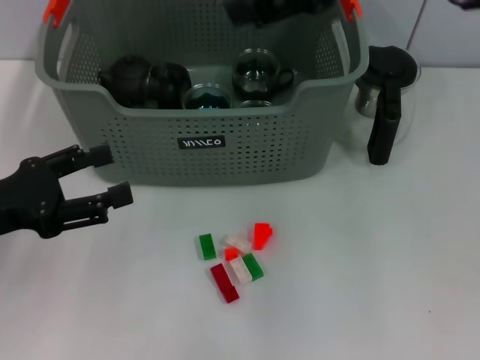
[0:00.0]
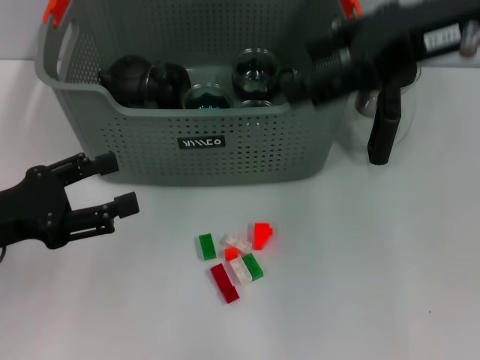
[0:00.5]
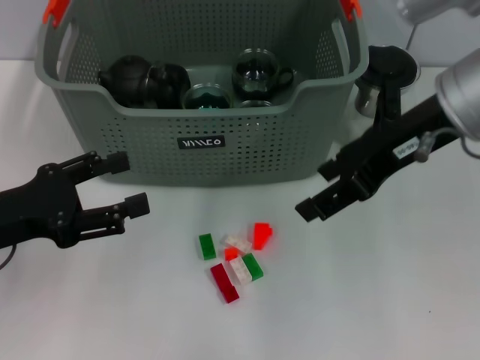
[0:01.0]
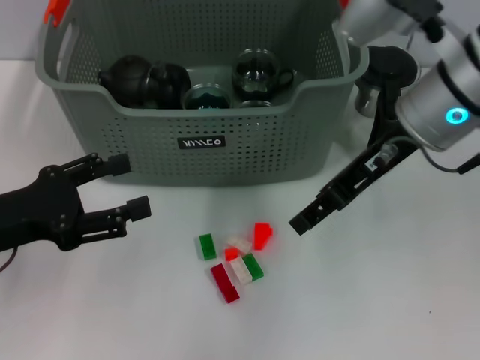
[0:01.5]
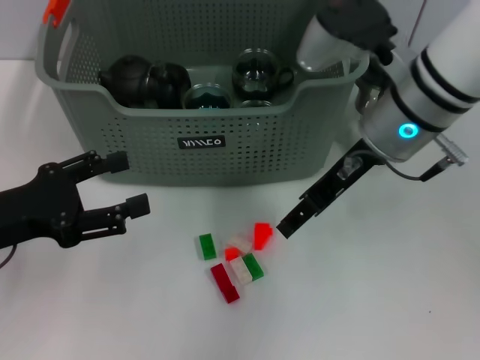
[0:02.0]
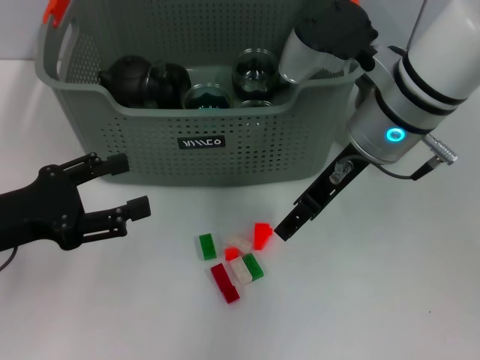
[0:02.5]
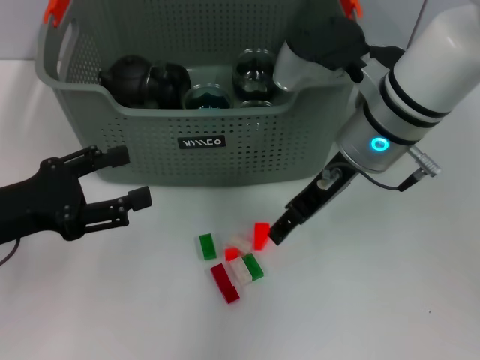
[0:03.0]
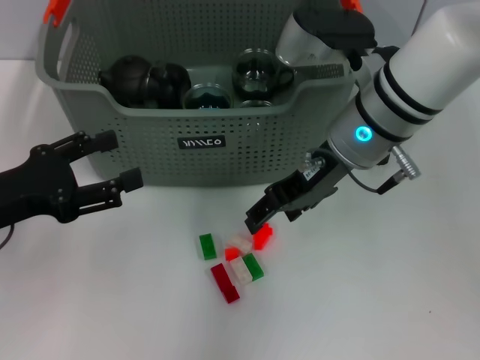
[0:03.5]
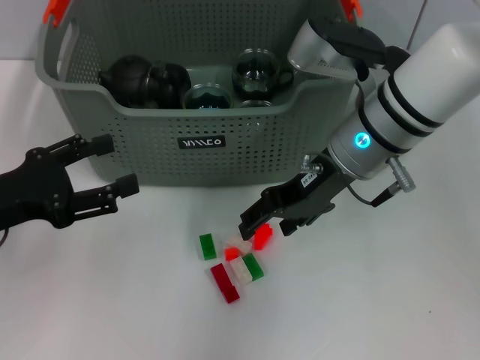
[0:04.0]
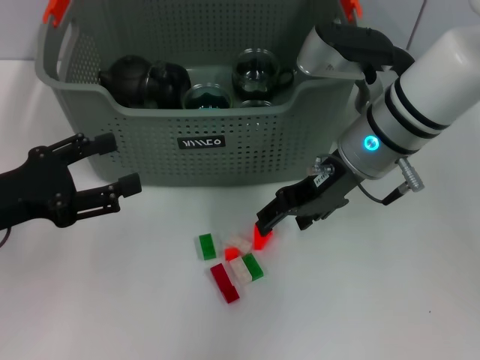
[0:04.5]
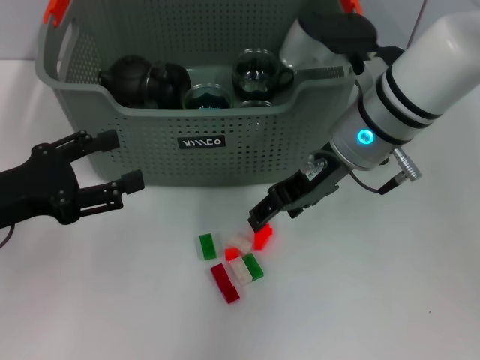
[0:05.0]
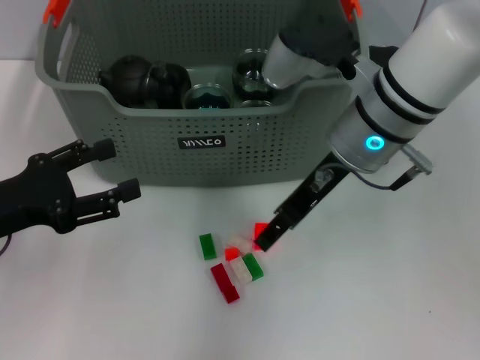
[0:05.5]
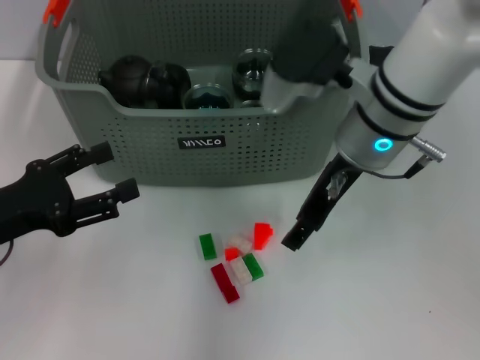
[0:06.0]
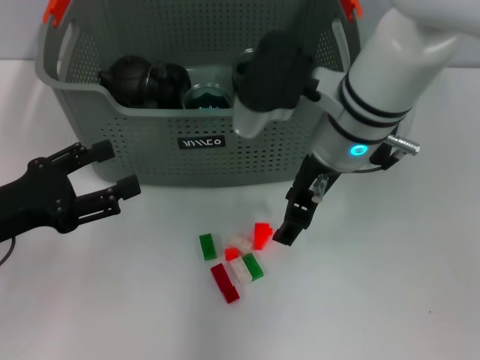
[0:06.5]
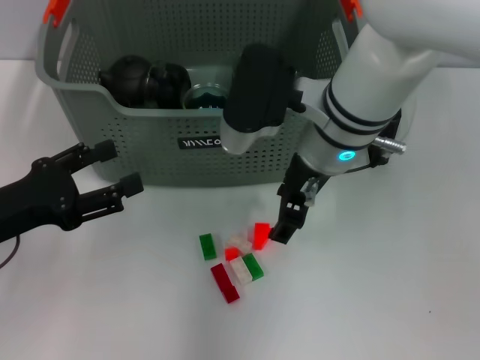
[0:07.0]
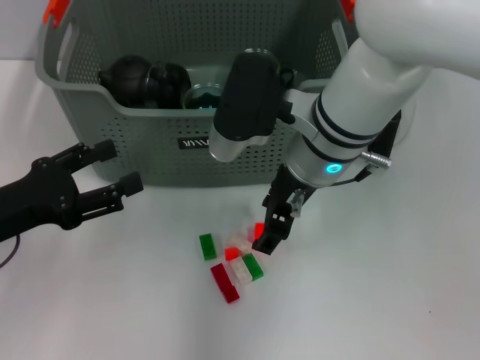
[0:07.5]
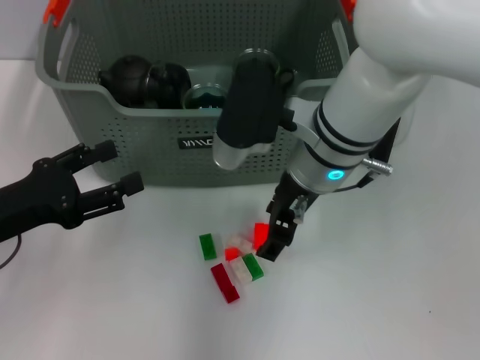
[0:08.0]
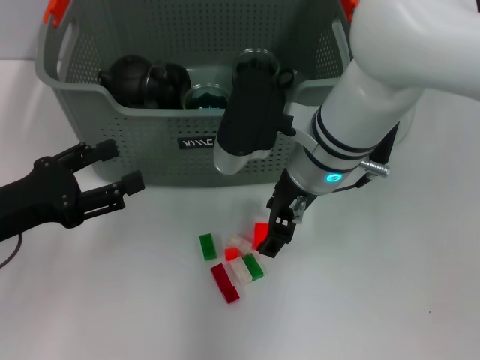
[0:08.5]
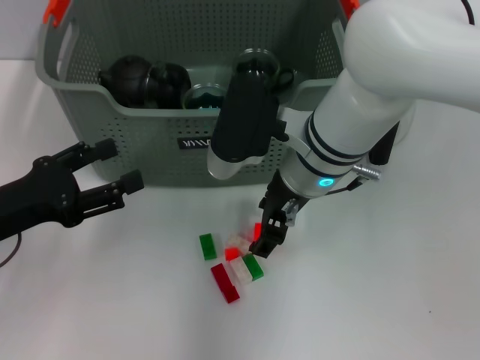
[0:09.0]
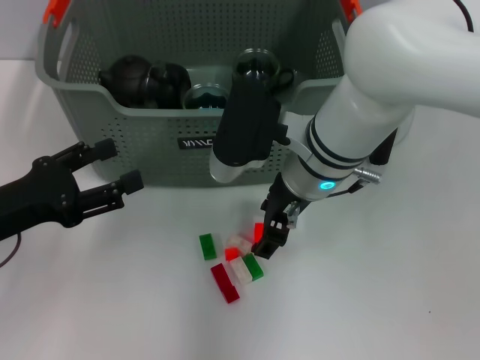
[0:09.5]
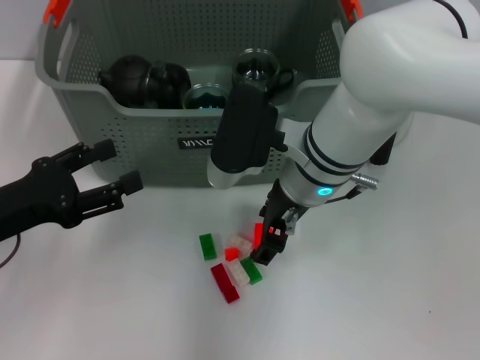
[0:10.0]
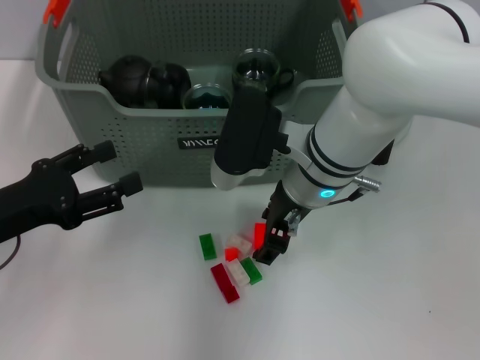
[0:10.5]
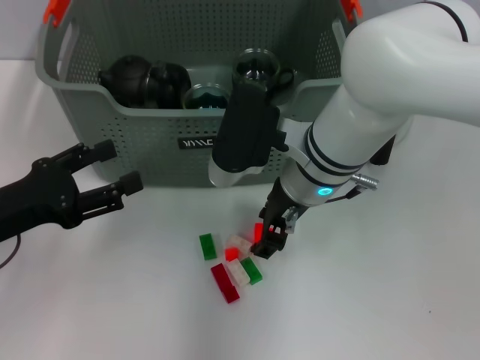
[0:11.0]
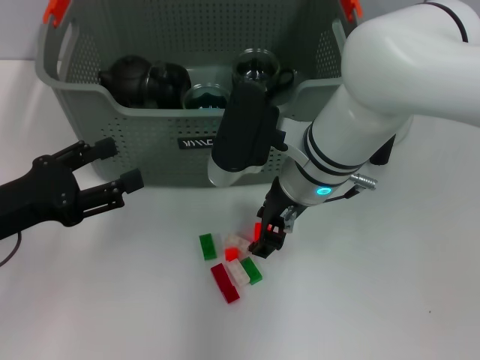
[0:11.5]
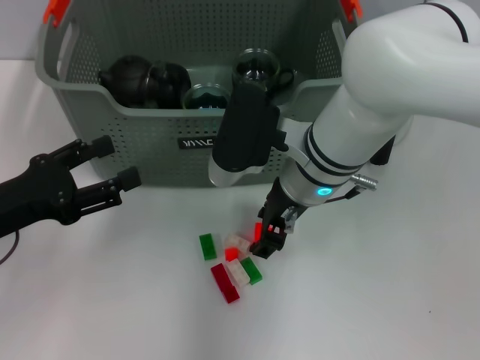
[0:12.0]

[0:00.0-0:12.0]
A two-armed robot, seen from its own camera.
Task of the whole recording: pick up the teacup on the table and place it into the storage bin, pick up the block on the table and place it into the storage bin.
0:00.0 to 0:02.0: The right gripper moves downward, roughly 15 cm.
0:06.0 to 0:08.0: The right gripper moves roughly 5 cm.
0:08.0 to 0:10.0: The grippers stay close to where they were, moving slightly.
0:10.0 to 0:12.0: Both grippers stay put.

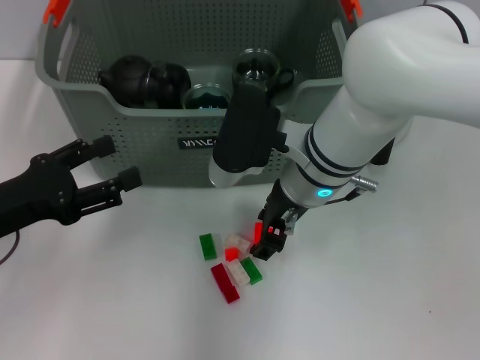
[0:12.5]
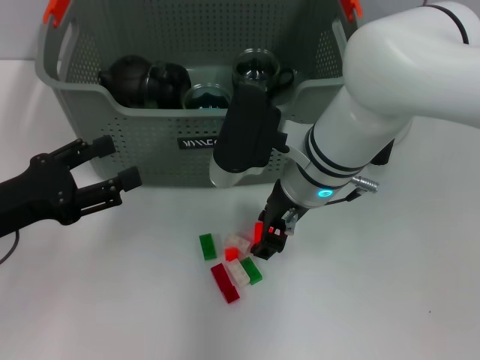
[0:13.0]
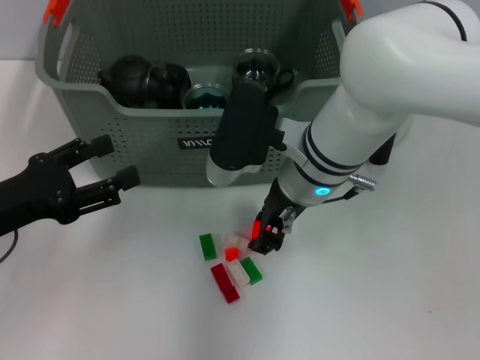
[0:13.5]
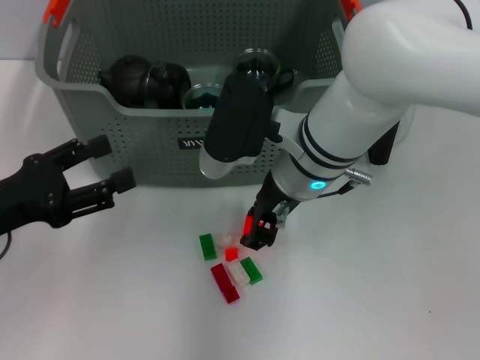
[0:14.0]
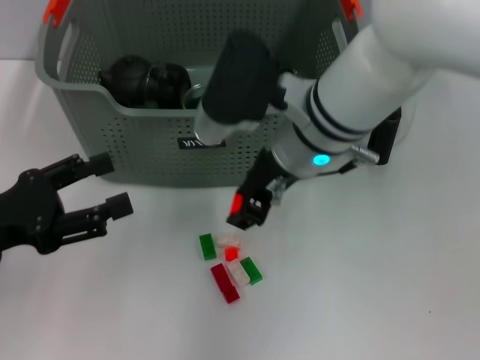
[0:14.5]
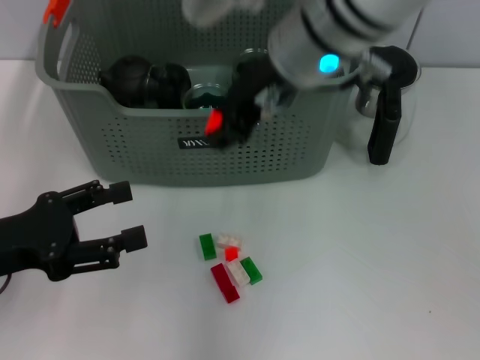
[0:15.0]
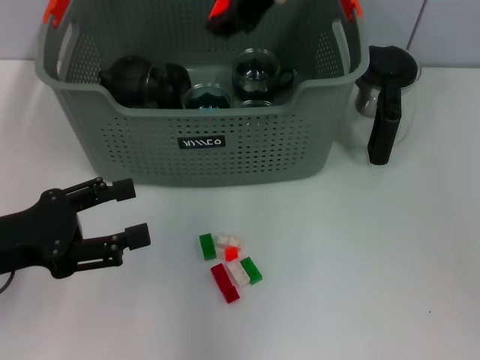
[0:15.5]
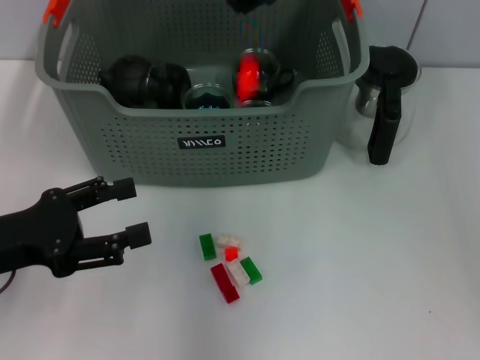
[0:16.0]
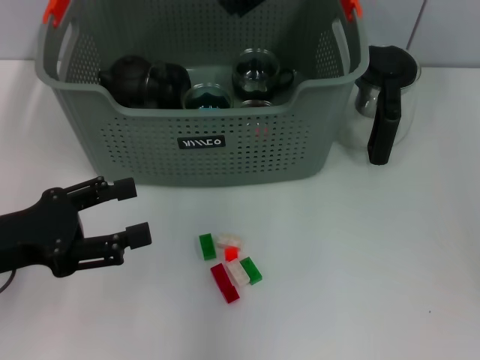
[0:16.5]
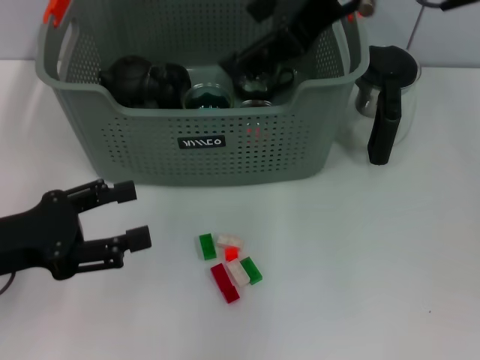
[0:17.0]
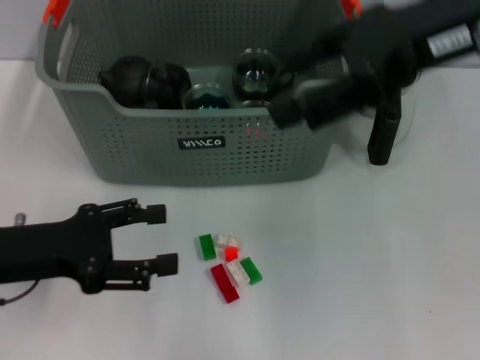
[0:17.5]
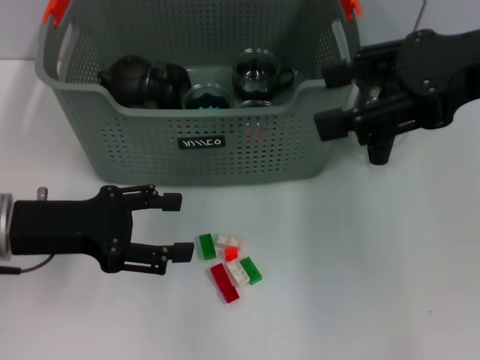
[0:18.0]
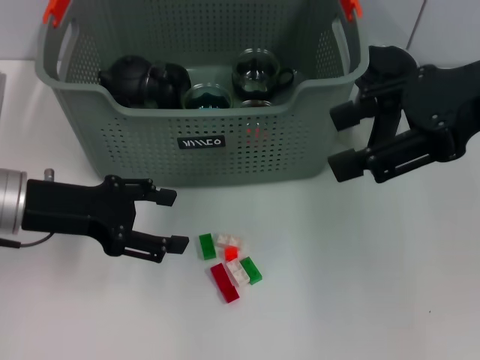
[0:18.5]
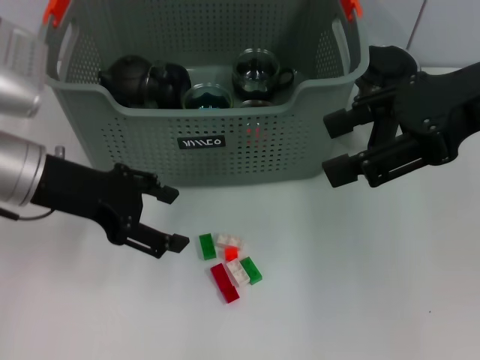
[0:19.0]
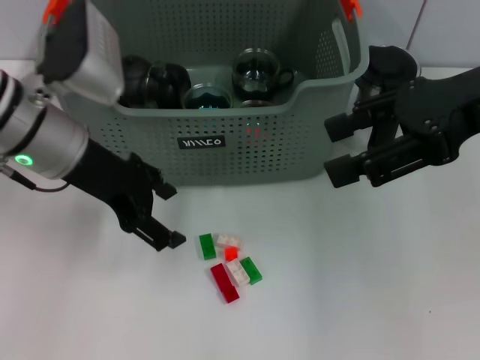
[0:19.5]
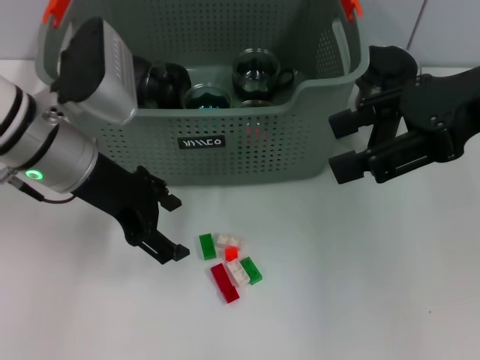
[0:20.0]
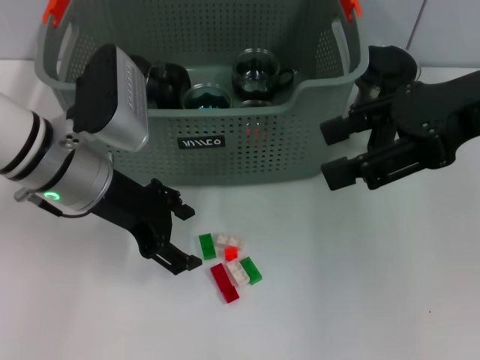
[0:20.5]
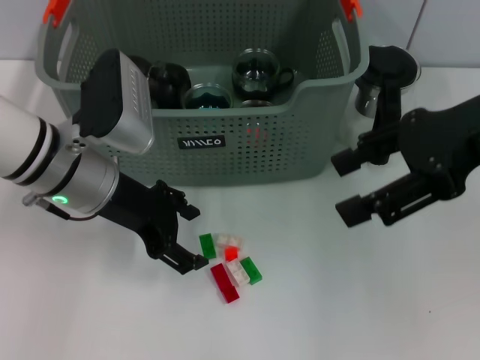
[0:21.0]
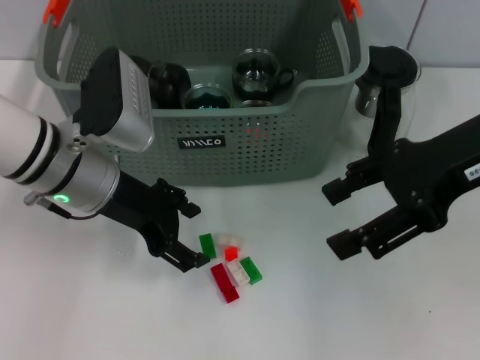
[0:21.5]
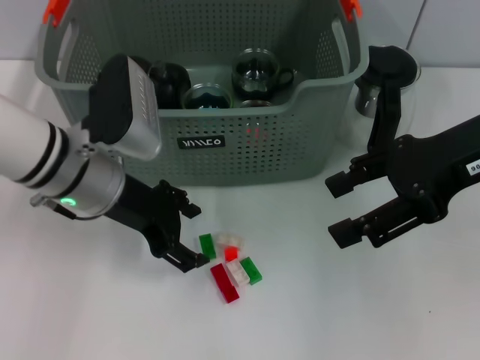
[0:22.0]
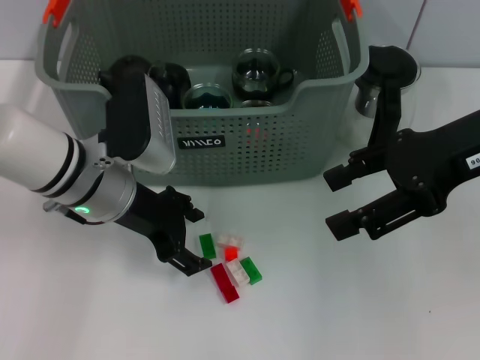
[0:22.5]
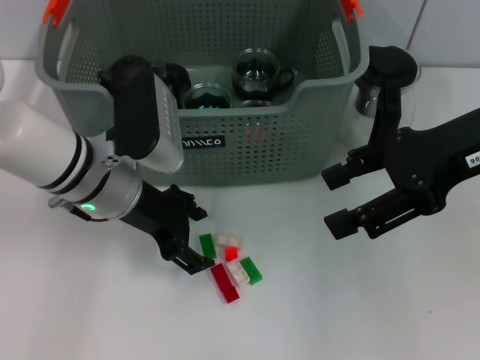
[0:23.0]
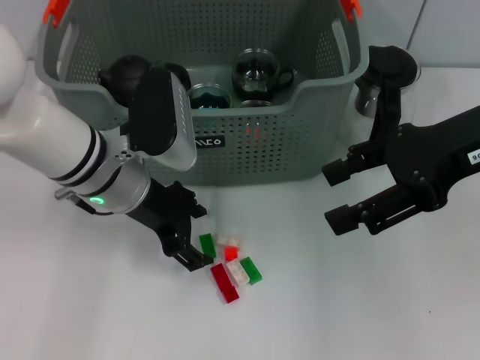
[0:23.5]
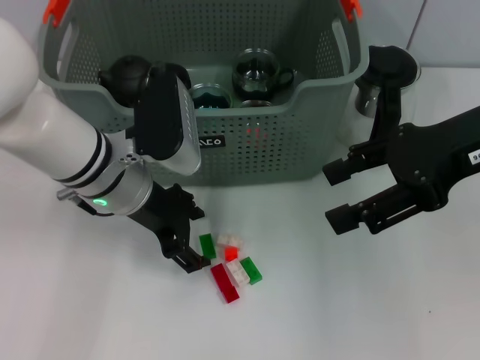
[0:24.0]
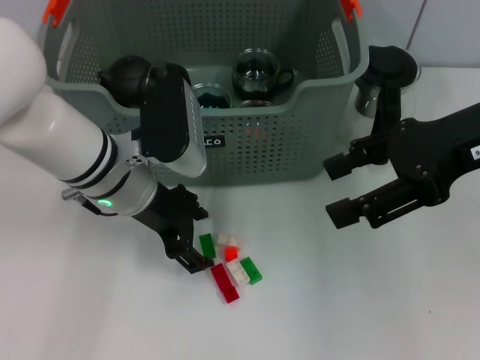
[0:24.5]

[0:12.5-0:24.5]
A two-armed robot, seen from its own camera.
Task of the whole recording: pick up the teacup on the table and place it into the storage bin, pick up the block on the table and place it into the storage bin.
Step, 0:13.5 to 0:17.0: Place the orange block in the storage box with right gripper.
0:12.5 to 0:14.5: The right gripper shifts roughly 5 cm upward.
0:14.5 to 0:16.5: The right gripper heads upward, covering roughly 15 cm, and opens its fingers.
0:16.5 to 0:18.5: The right gripper heads to the right and backward, covering about 15 cm; the left gripper is displaced forward by roughly 5 cm.
0:18.5 to 0:20.5: The left gripper shifts roughly 10 cm to the right.
0:20.5 to 0:24.5: The grippers stay close to where they were, moving slightly.

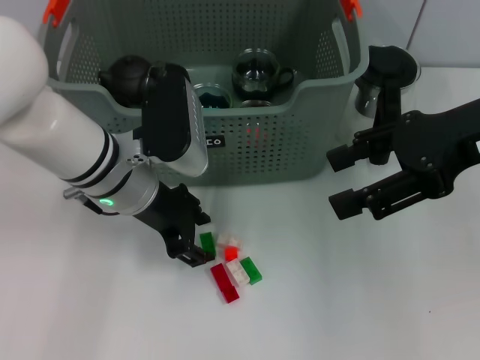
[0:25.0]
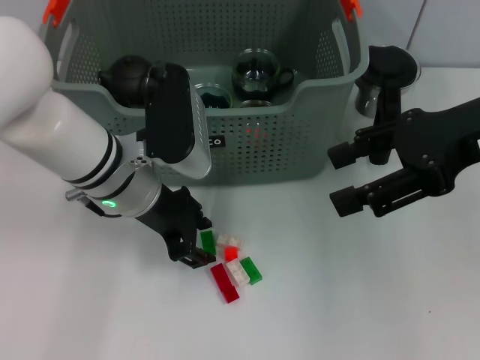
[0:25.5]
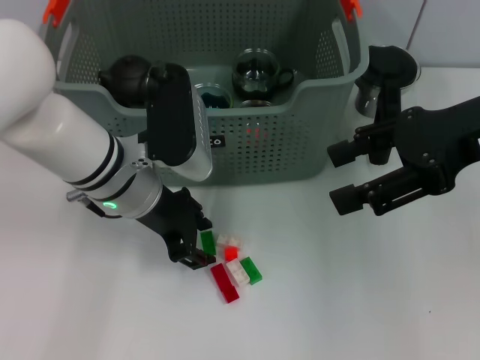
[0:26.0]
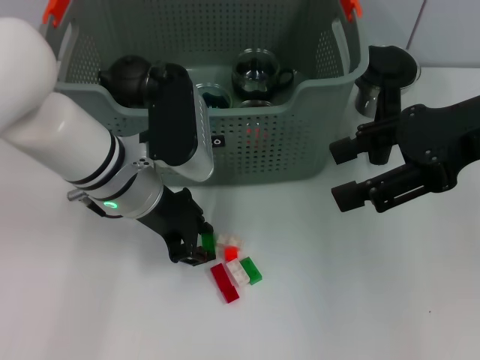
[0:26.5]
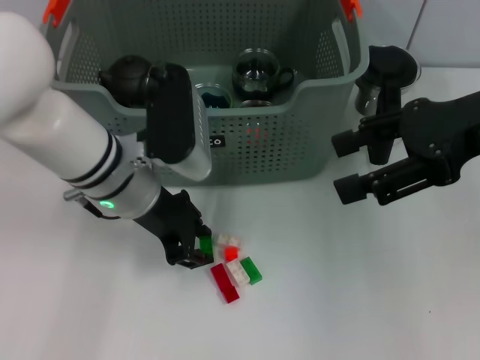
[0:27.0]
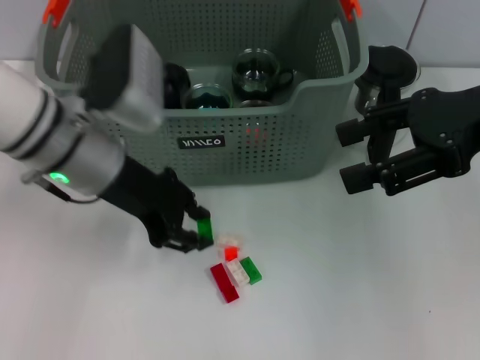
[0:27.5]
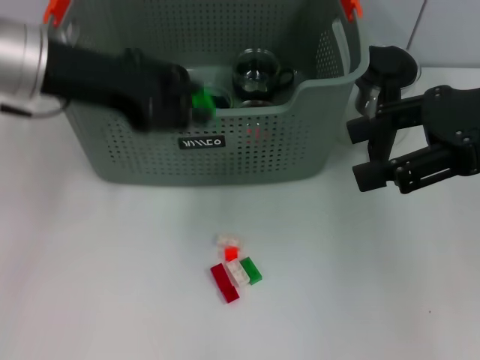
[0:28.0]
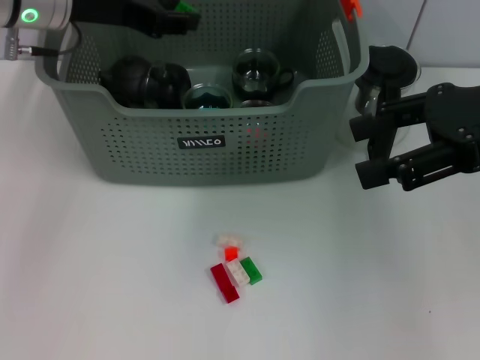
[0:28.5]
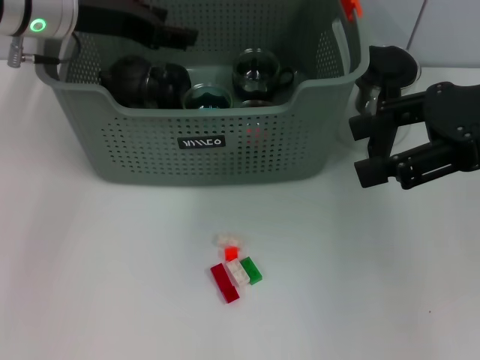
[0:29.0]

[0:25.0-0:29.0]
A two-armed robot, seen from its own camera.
Task of the whole recording: pick up the teacup on the table and place it into the storage bin, pick up the block on the table and place it into the storage bin.
0:25.0 to 0:27.0: The left gripper closes up.
0:27.0 to 0:29.0: The left gripper shifts roughly 15 cm upward, to the left and forward.
